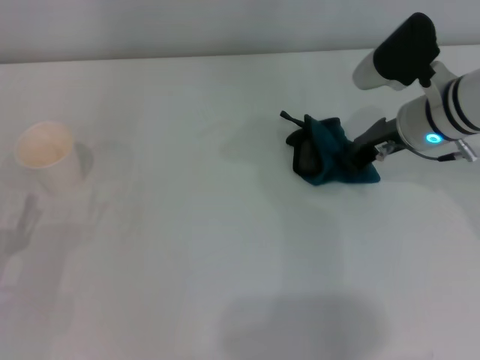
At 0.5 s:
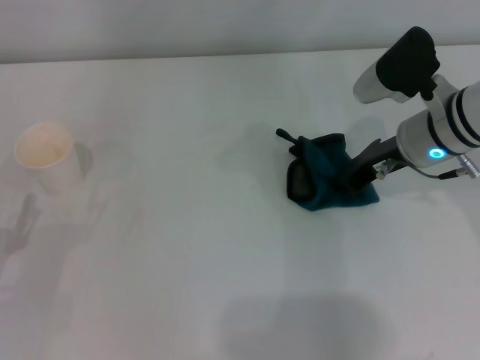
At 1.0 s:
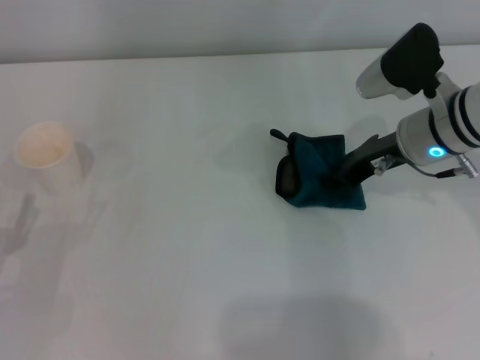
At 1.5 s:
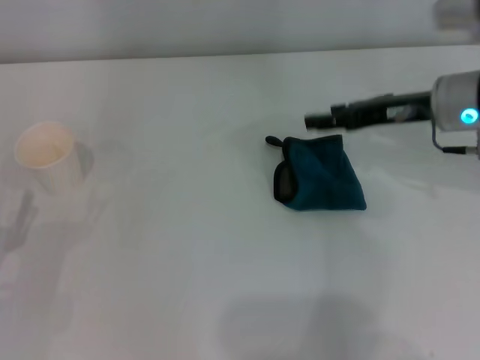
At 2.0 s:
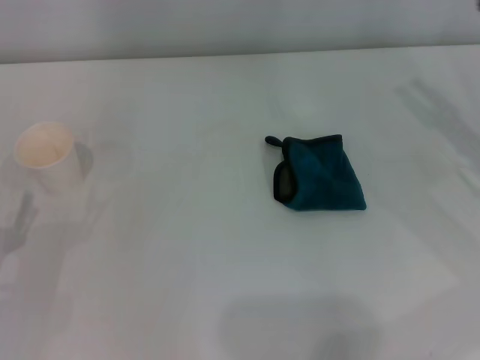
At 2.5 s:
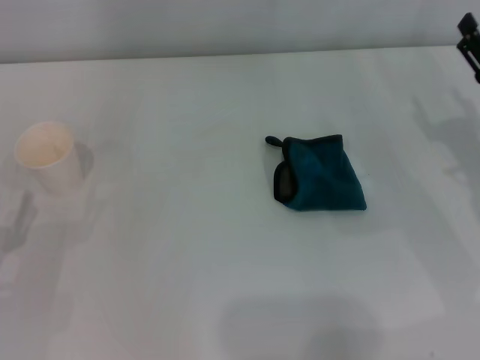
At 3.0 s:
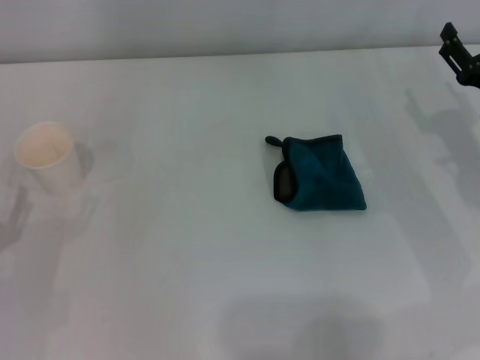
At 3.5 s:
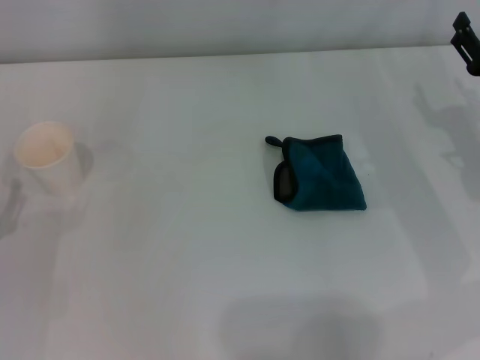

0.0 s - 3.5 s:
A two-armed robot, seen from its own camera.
Step, 0.0 s - 1.0 s: Place the rag on the table with the right gripper.
0.0 s - 2.0 s: The right gripper travels to the right and backward by some 15 cm, and opens.
2.0 s - 3.5 s: The right gripper heads downward, covering roughly 5 cm.

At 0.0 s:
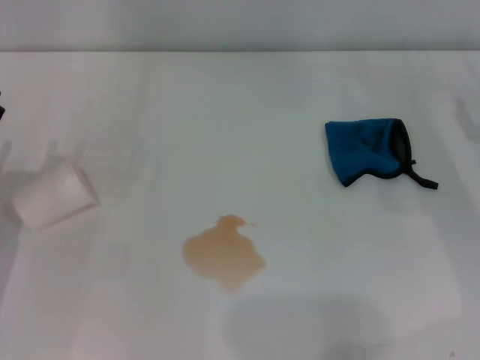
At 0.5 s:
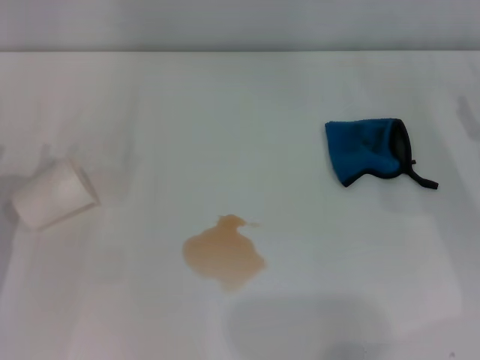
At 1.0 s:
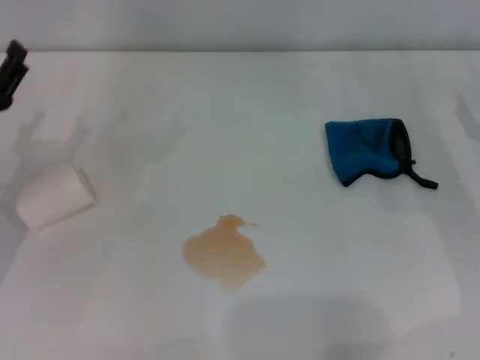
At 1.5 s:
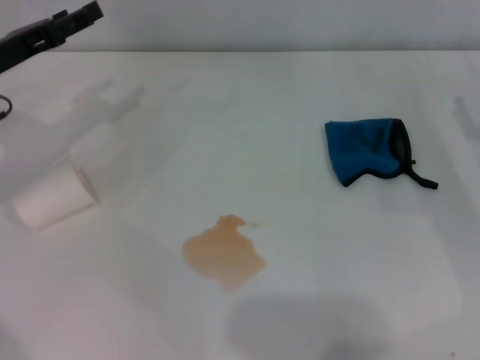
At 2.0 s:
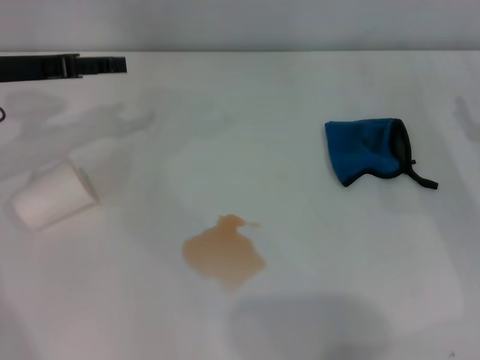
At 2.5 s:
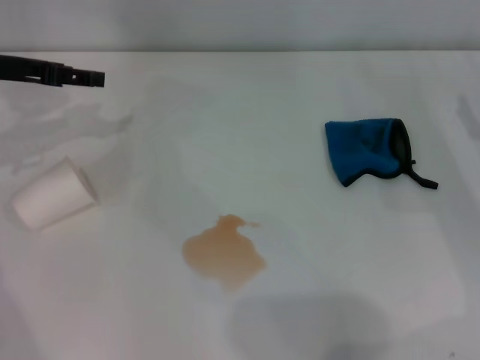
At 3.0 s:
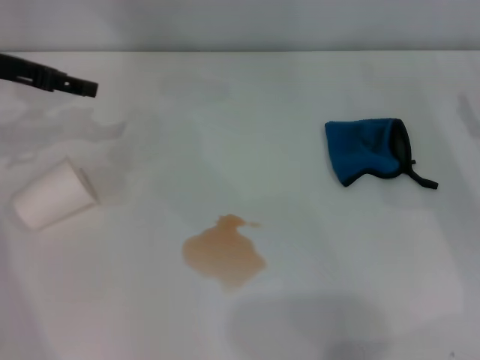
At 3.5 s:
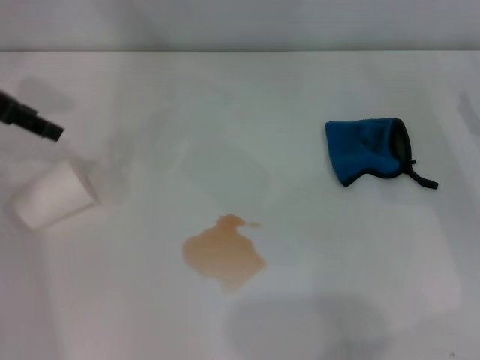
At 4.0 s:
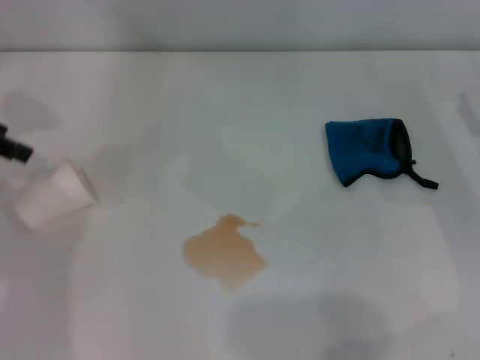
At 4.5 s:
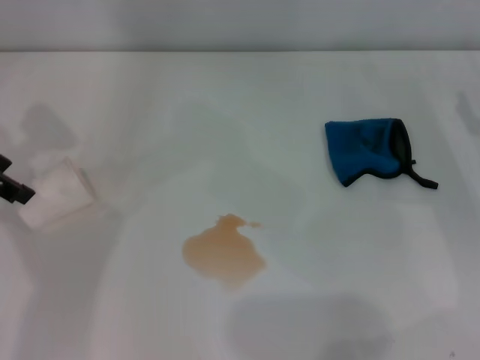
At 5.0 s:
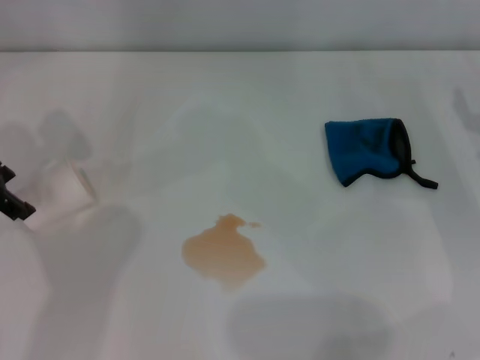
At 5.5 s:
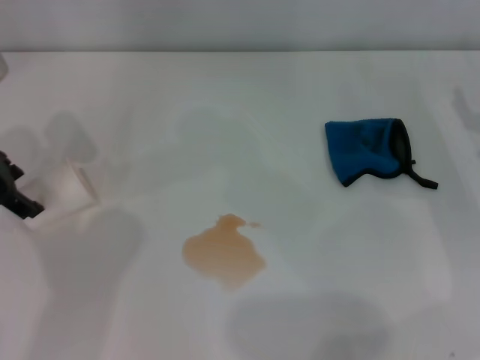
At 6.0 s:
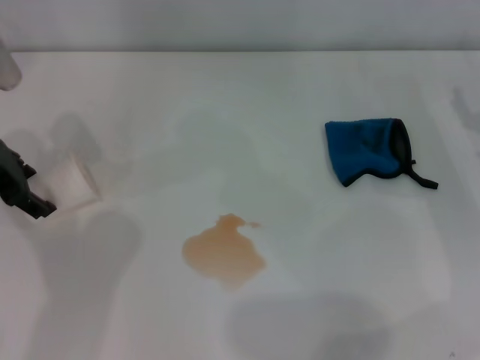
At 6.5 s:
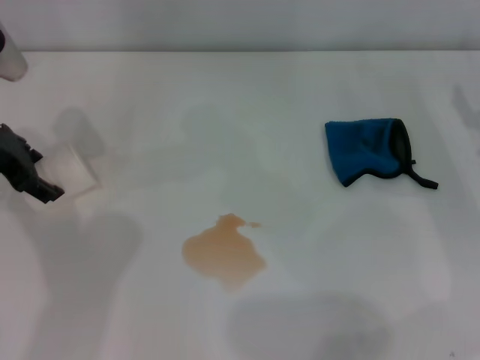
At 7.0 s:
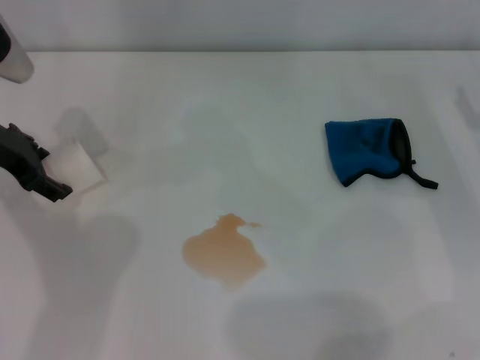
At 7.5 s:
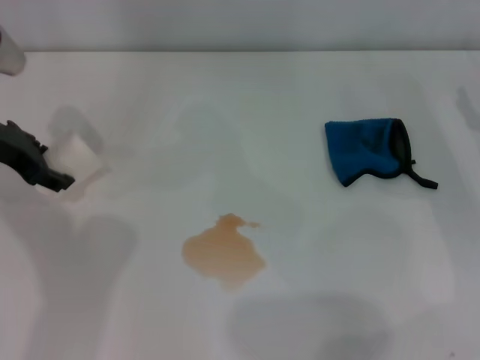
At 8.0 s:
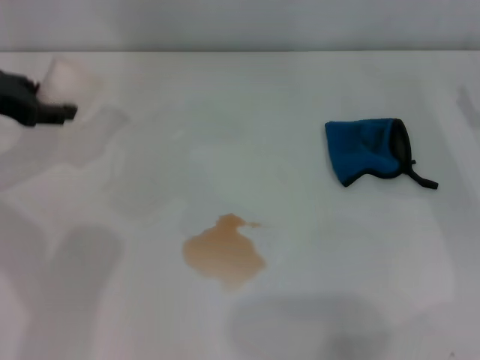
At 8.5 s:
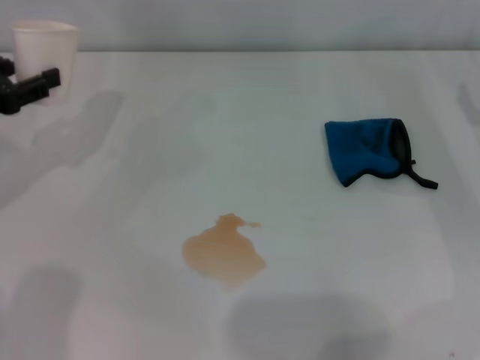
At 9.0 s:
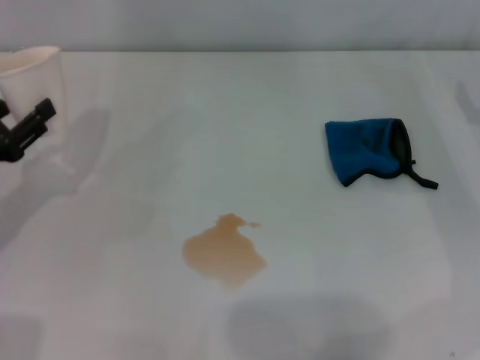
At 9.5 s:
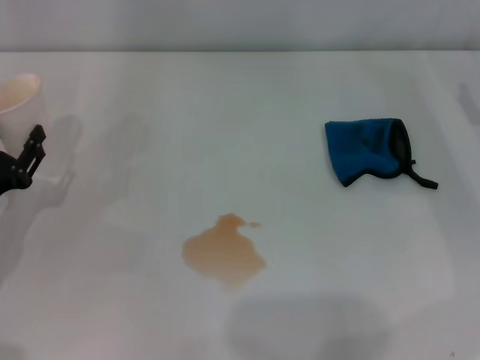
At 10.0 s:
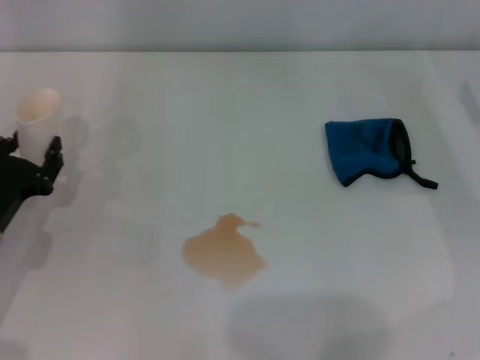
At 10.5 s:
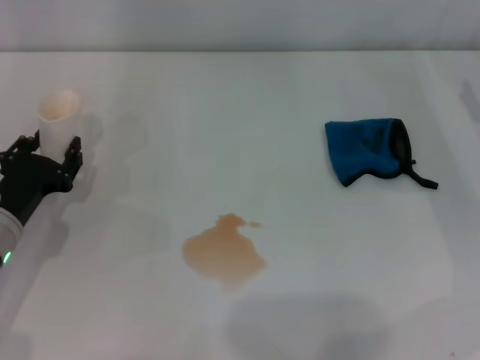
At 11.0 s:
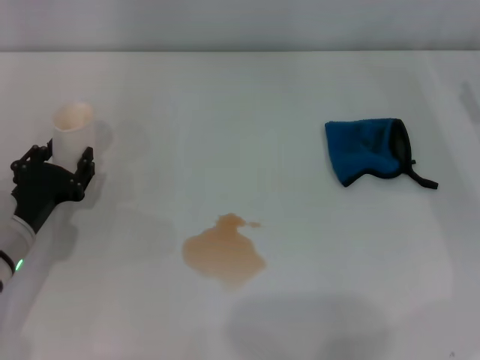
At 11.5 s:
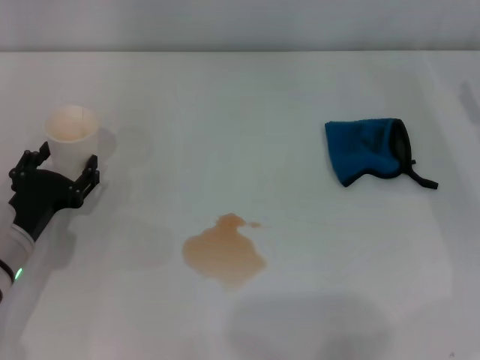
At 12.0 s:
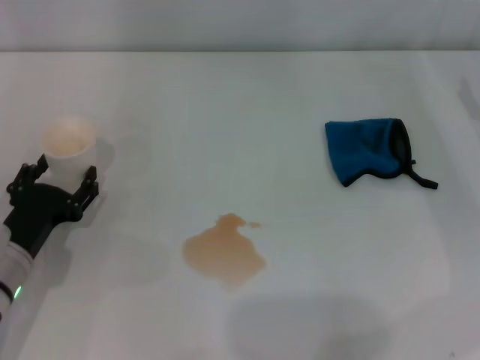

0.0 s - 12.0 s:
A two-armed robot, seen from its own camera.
Step, 0.0 s - 7.0 s: Grasp the paper cup with the left gripper.
0.0 s - 2.0 s: The left gripper heads forward and upward, covering some 20 cm.
2.0 s - 4.0 s: The left gripper travels upward by some 5 cm.
4.0 s - 6.0 s: The left gripper travels downward and to the right by approximately 10 cm.
6.0 s - 8.0 s: The left gripper closes.
8.0 s - 10.0 s: The left gripper moves downward and backward, some 20 cm.
10.0 s - 12.0 s: The left gripper opens up.

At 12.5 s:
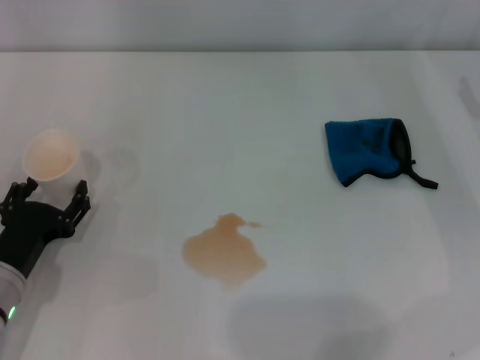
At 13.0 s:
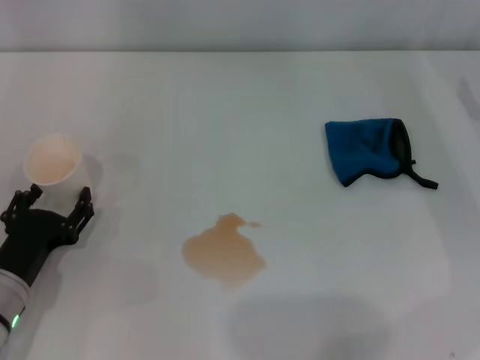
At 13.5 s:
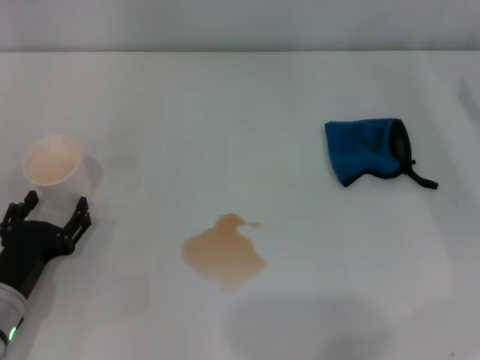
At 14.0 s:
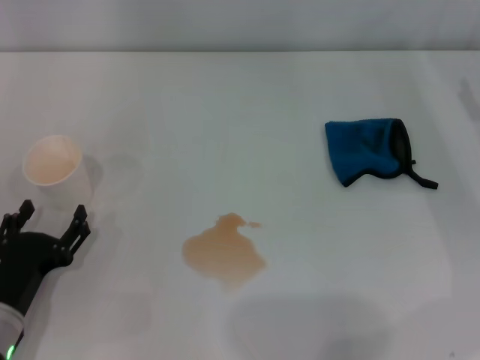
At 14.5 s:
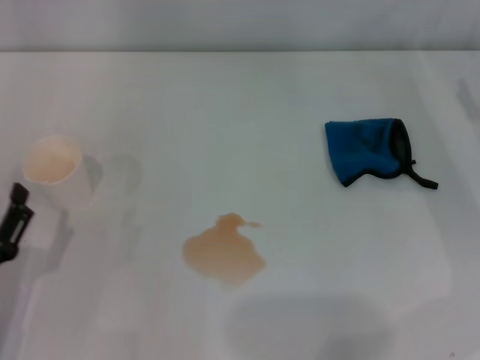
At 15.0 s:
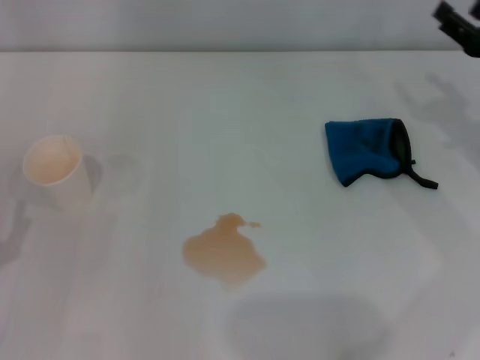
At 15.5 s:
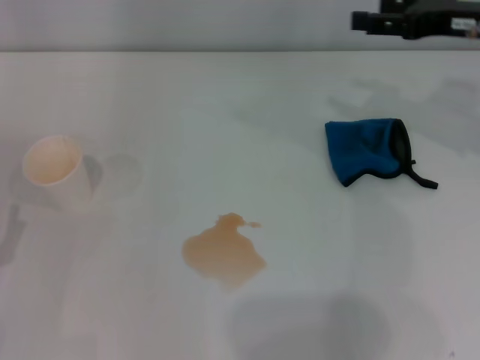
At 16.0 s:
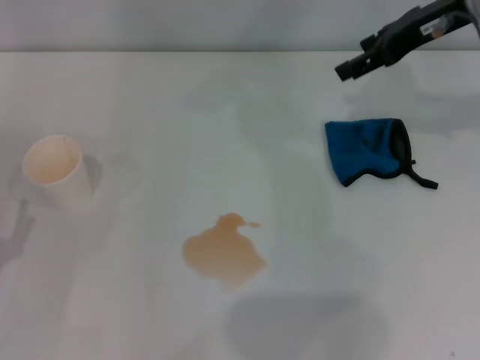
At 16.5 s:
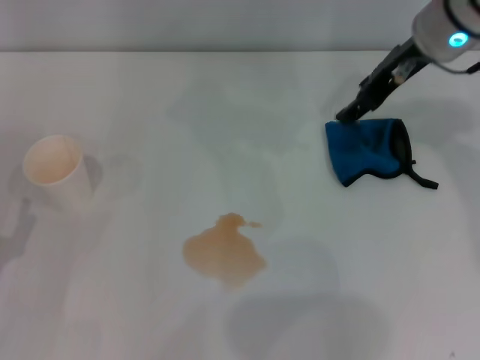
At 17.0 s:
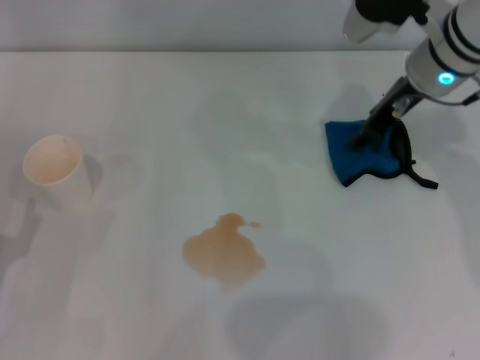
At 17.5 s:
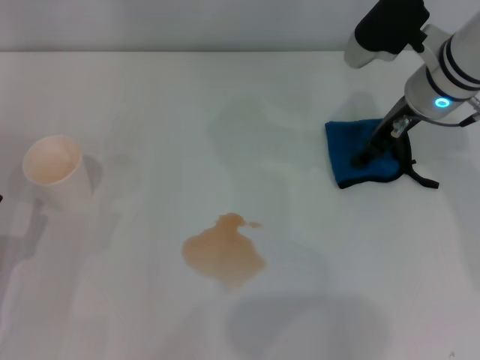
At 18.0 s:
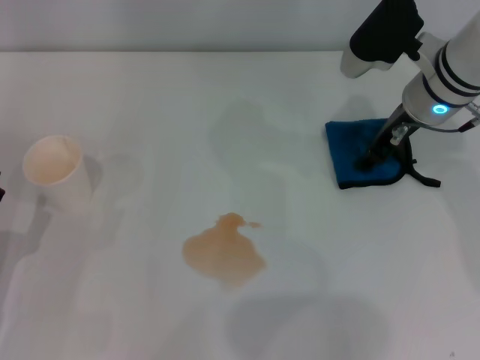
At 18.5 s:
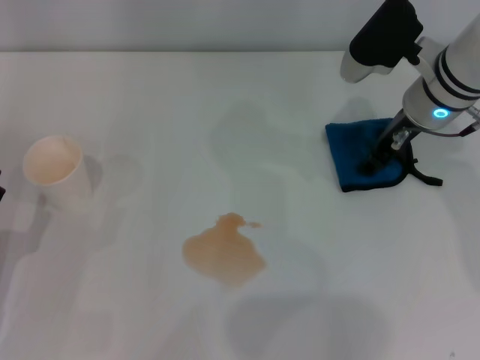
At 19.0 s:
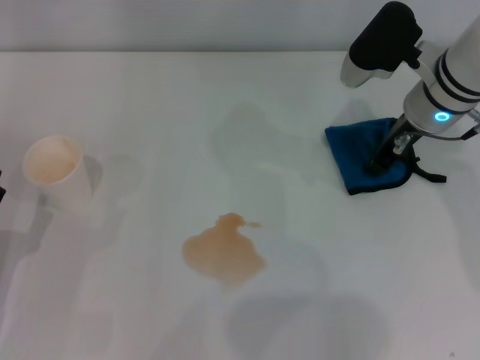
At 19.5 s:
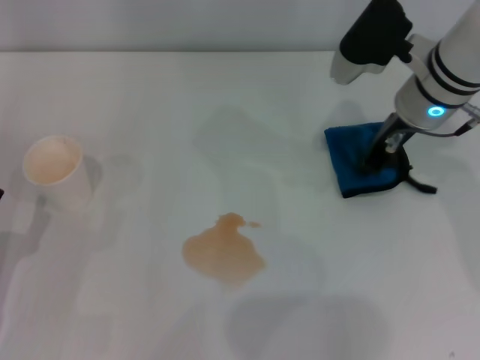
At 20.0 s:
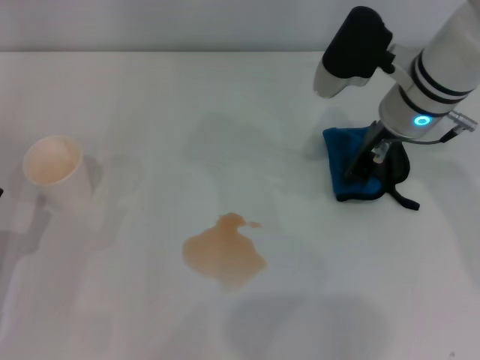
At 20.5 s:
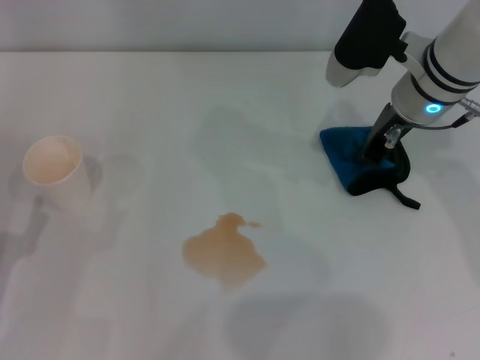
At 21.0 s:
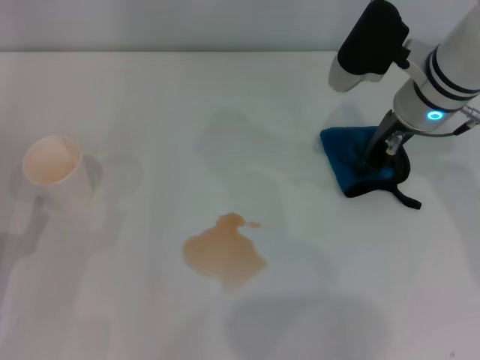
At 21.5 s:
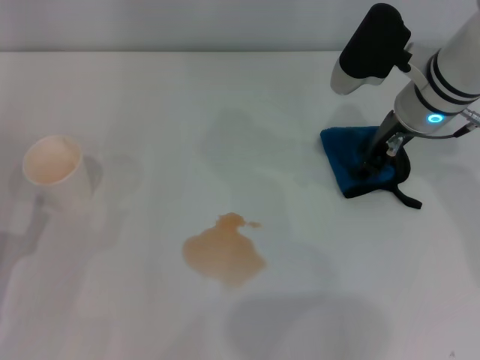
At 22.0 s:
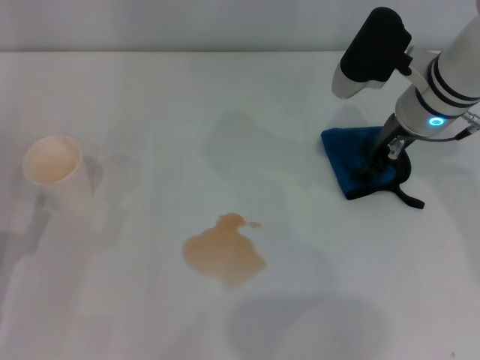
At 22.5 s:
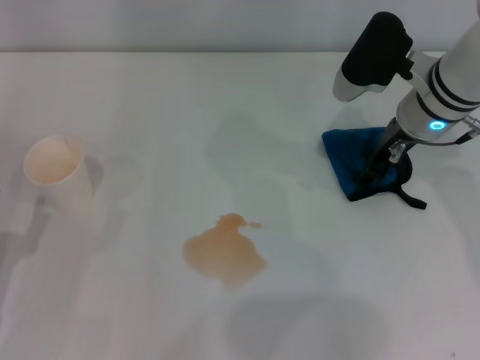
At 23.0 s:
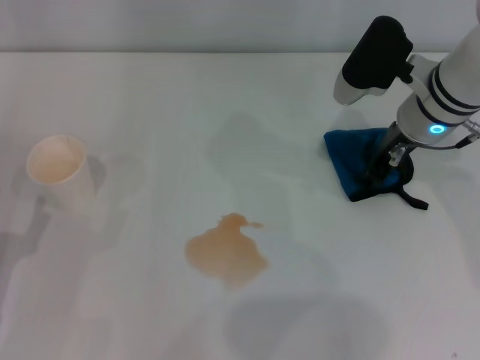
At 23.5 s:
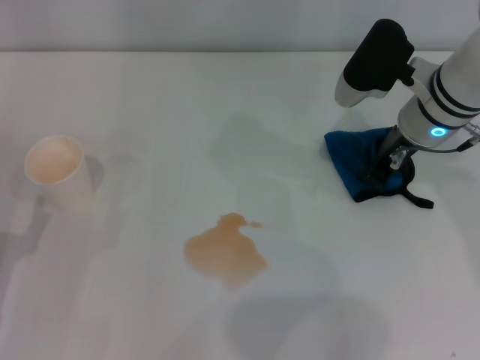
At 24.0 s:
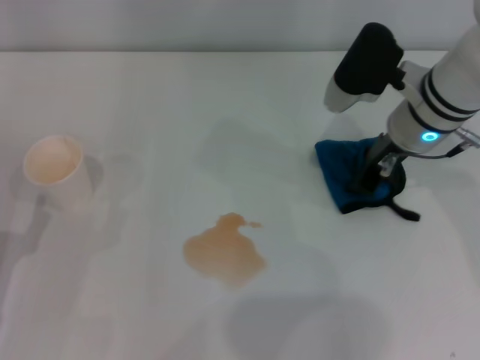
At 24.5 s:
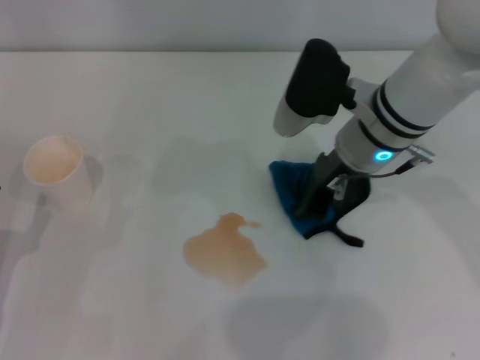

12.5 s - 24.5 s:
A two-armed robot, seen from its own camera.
Step, 13.0 s - 23.5 s: Grasp the rag with the right gripper.
12.5 s - 14.5 s: The left gripper heads backward, covering roughly 5 cm.
14.5 s - 16.5 s: The right gripper is displaced to the left, upward and forward by roughly 25 cm.
16.5 s - 18.5 s: The right gripper goes approximately 10 cm downward, and closes.
18.5 s - 20.5 s: The right gripper closes up.
20.5 s - 22.5 s: The right gripper opens.
22.5 s - 24.5 s: The right gripper shifts some 5 cm to the left, and closes up.
